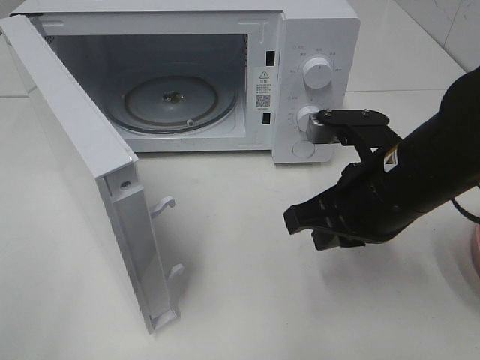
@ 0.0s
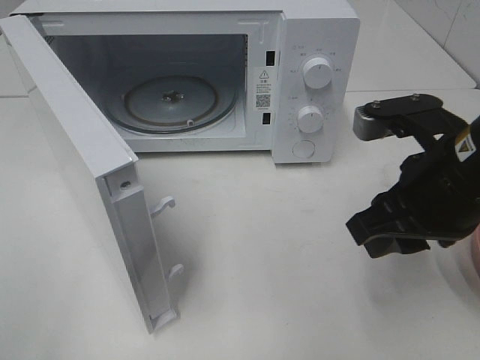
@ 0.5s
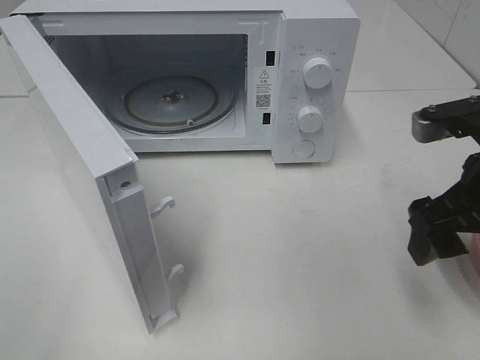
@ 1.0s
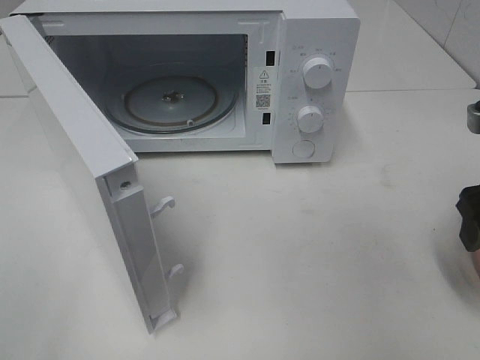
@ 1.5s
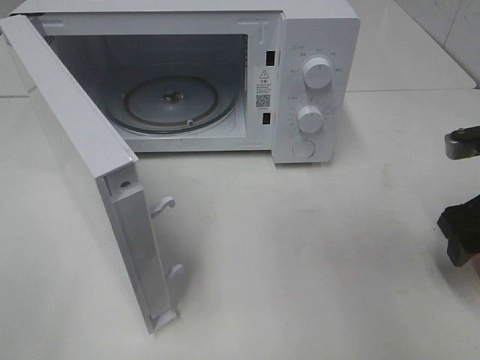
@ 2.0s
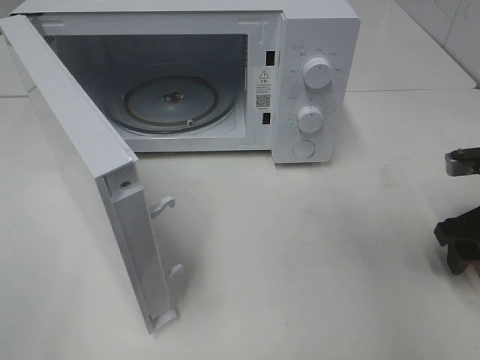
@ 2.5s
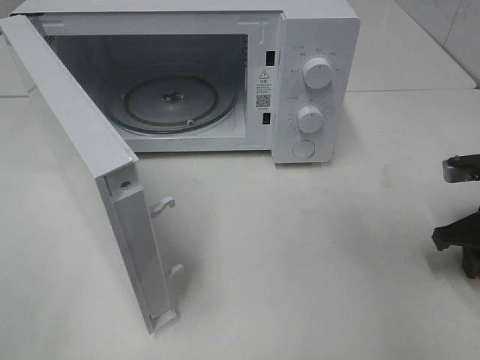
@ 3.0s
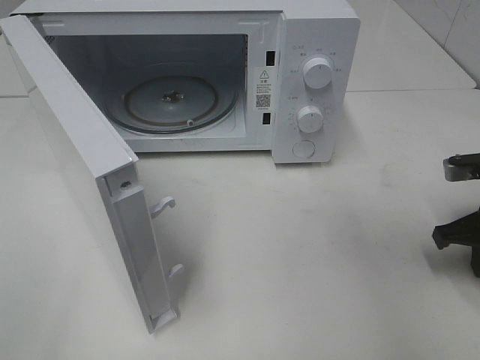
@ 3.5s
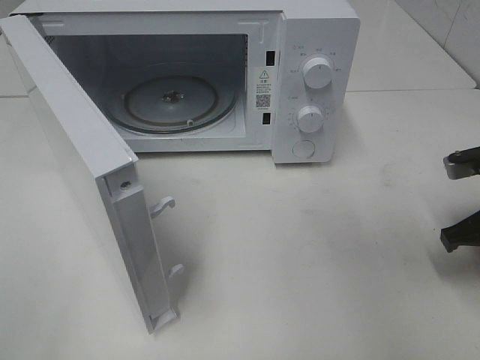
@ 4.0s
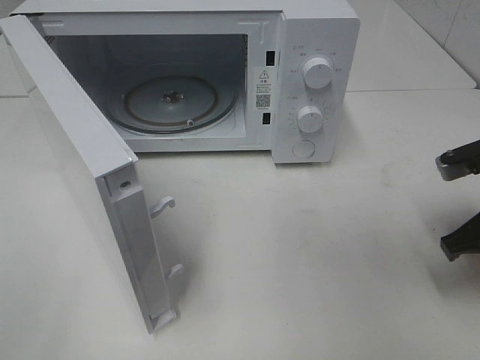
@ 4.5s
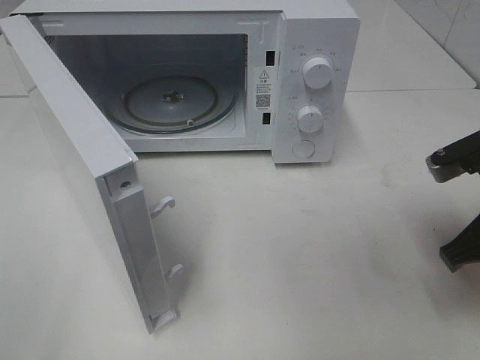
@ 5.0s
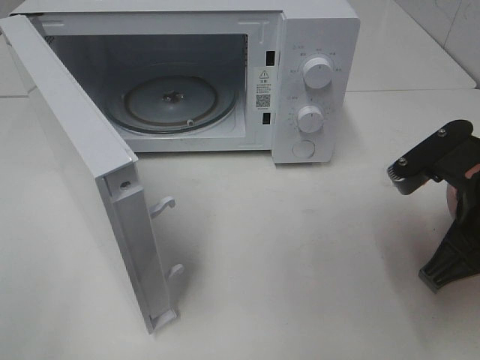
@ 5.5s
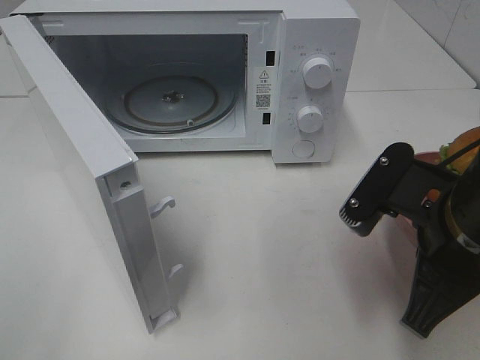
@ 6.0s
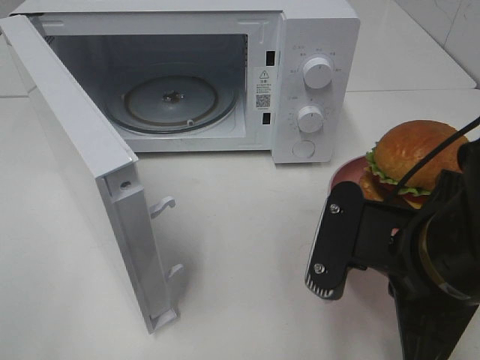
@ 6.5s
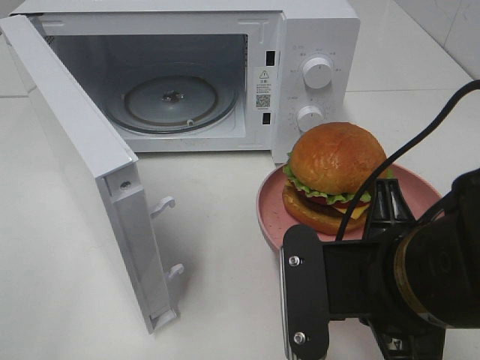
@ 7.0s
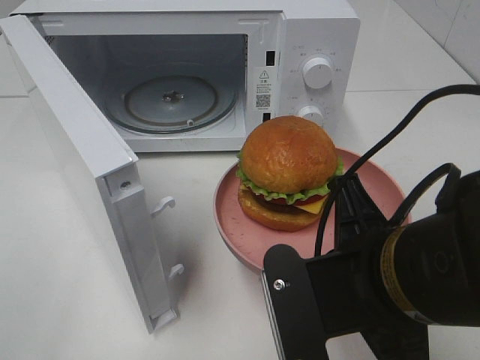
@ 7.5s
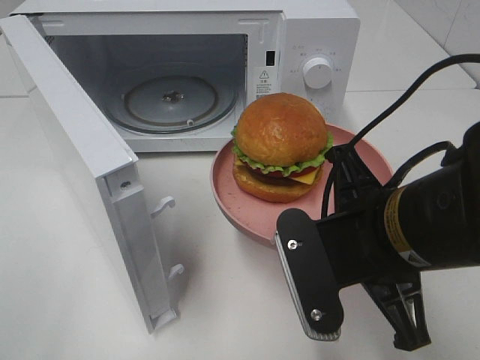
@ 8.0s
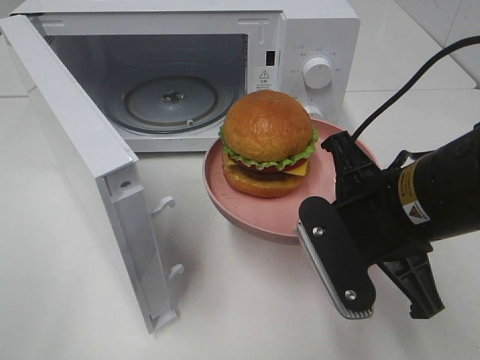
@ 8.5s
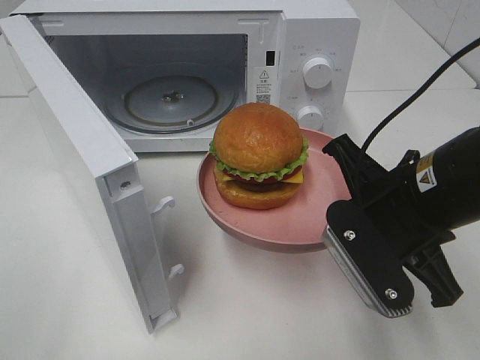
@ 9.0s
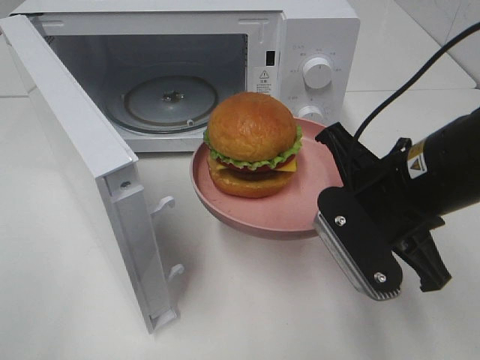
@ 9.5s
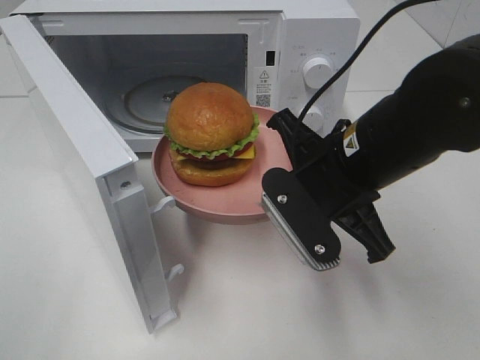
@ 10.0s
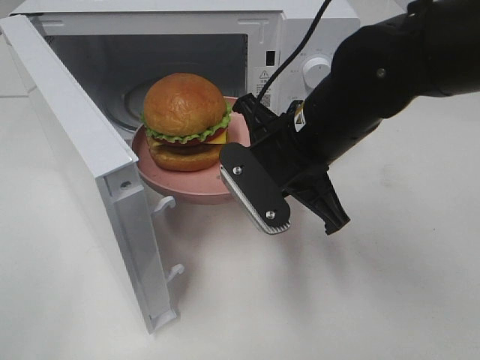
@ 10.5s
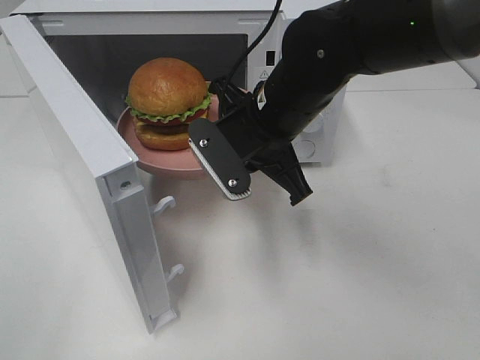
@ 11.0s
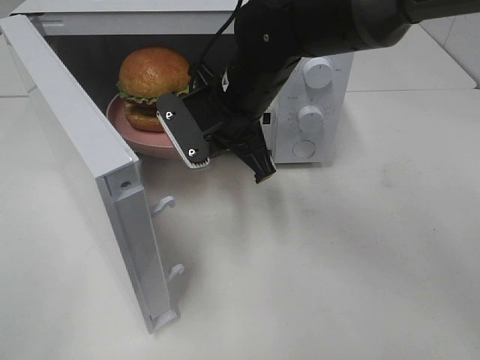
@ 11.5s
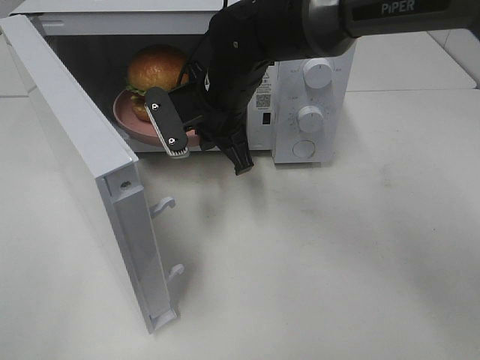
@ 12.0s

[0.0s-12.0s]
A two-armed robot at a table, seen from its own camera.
Task of the whole recording: Heat the burger.
Step, 0.0s to 3.5s: Right hand: grab the plate with the hamburger.
0.0s to 2.0s: The right gripper shifts roughly 15 cm to the right, and opens its fingers.
2.0s to 4.0s: The right gripper closes its fingers.
4.0s to 6.0s: The right gripper heads to the left, backward and upward, covering roughly 15 cm.
6.0s to 8.0s: The right gripper travels to the left by some 5 cm.
8.0s to 10.0s: The right gripper travels forward by roughly 10 cm.
10.0s to 12.0s: The right gripper heads forward and to the left, covering some 20 cm.

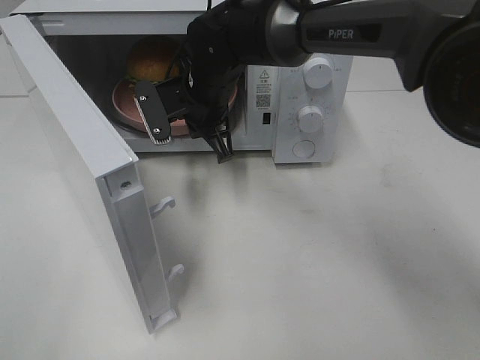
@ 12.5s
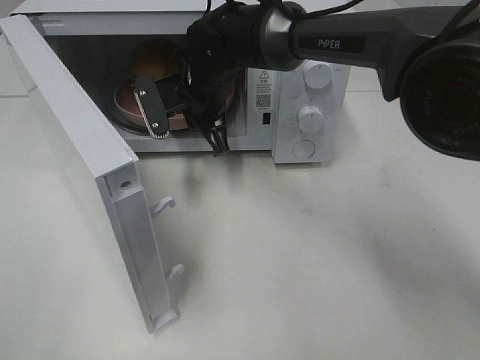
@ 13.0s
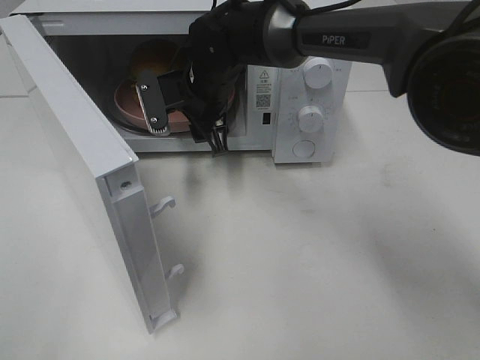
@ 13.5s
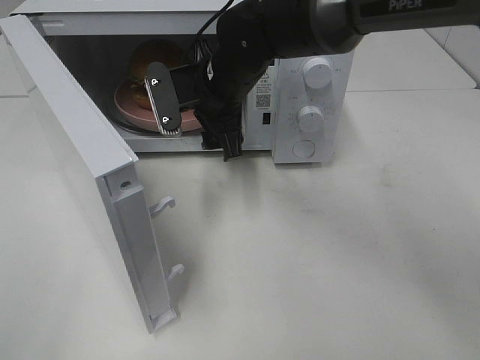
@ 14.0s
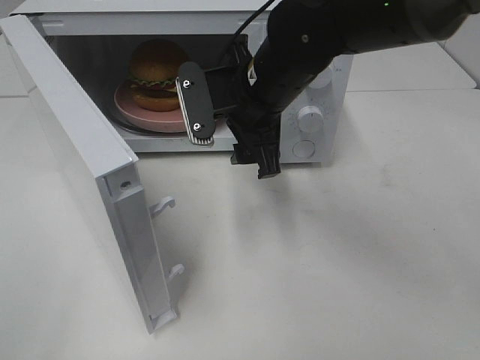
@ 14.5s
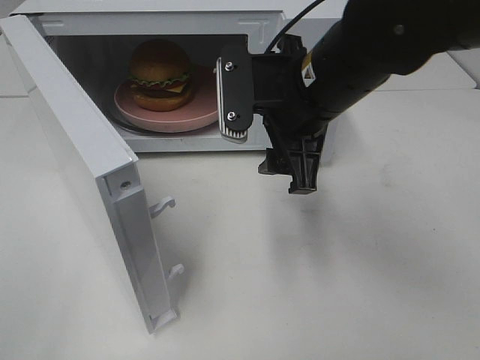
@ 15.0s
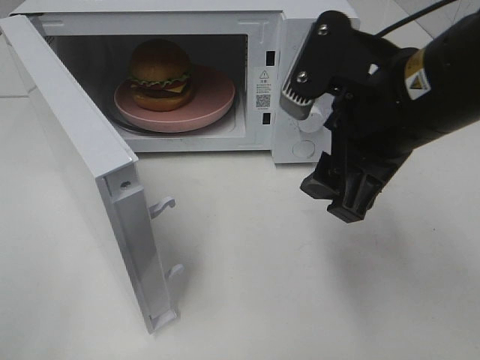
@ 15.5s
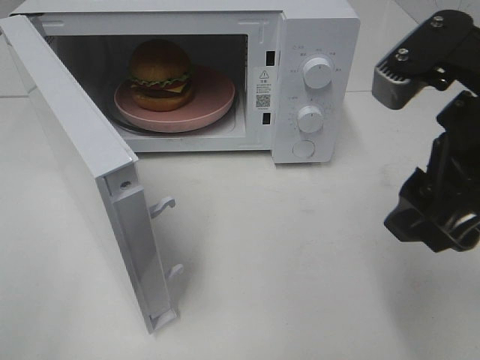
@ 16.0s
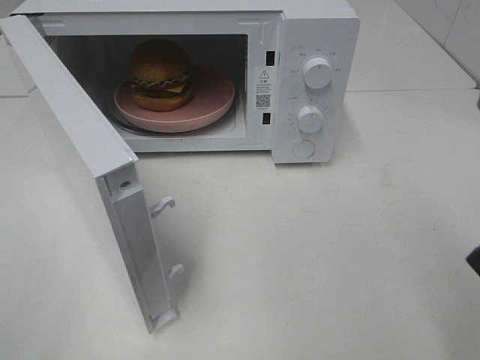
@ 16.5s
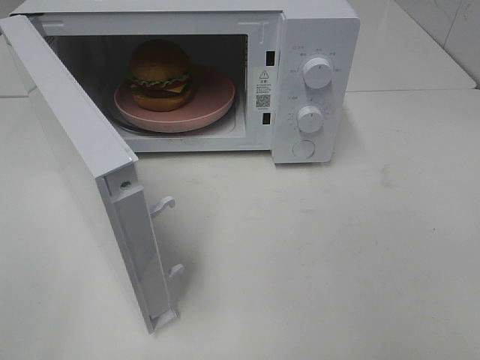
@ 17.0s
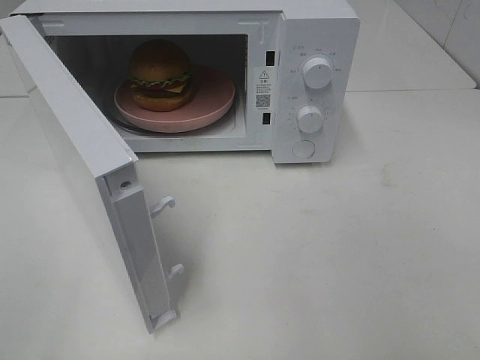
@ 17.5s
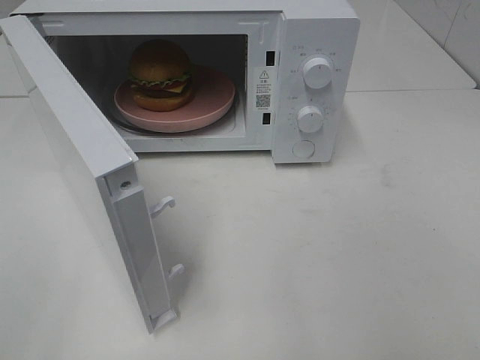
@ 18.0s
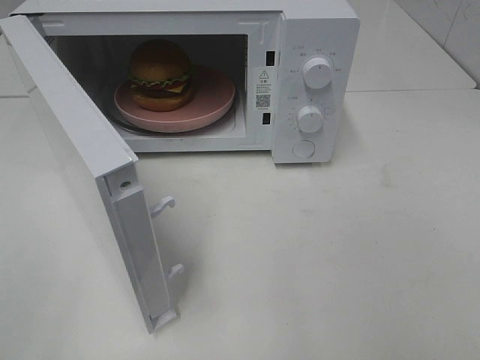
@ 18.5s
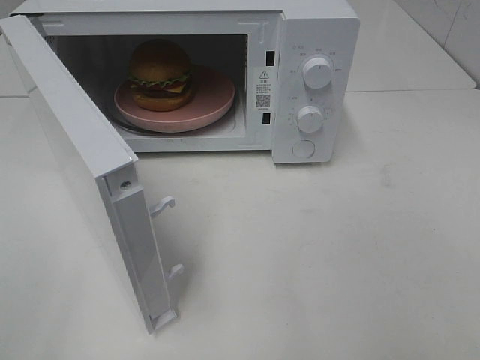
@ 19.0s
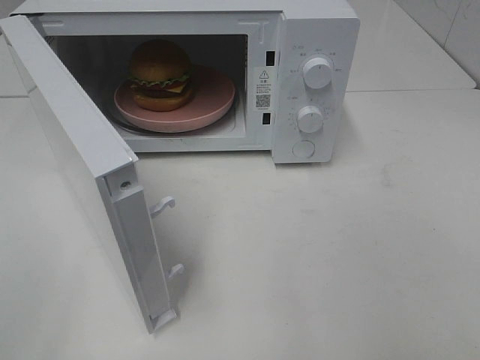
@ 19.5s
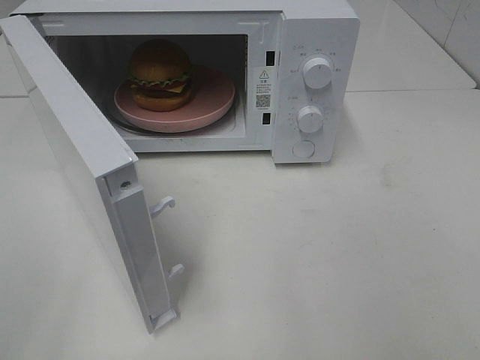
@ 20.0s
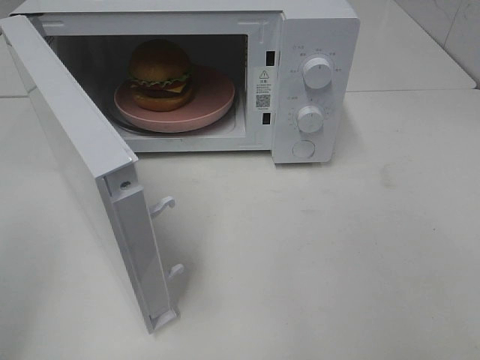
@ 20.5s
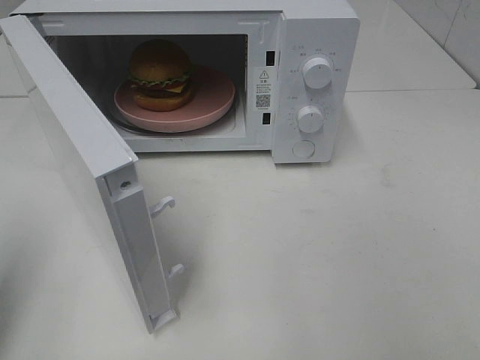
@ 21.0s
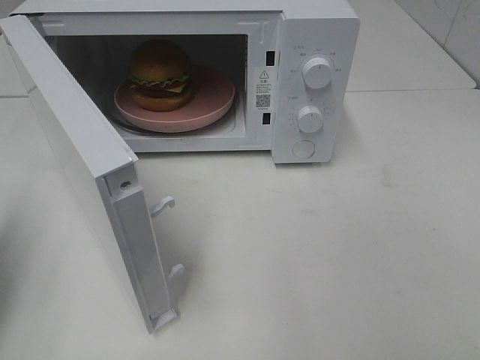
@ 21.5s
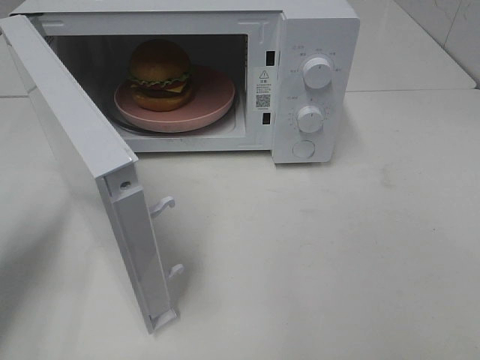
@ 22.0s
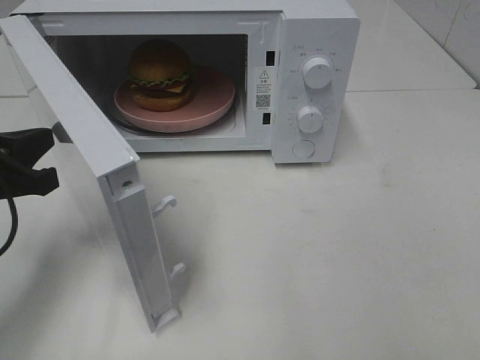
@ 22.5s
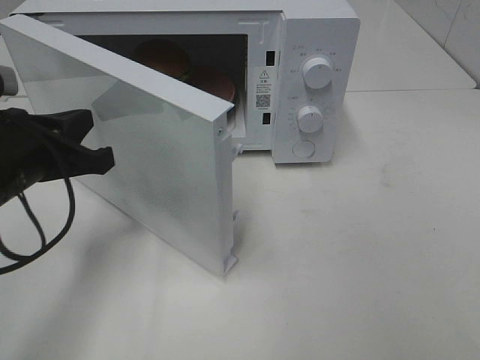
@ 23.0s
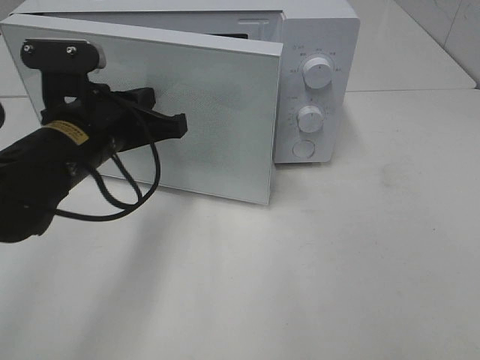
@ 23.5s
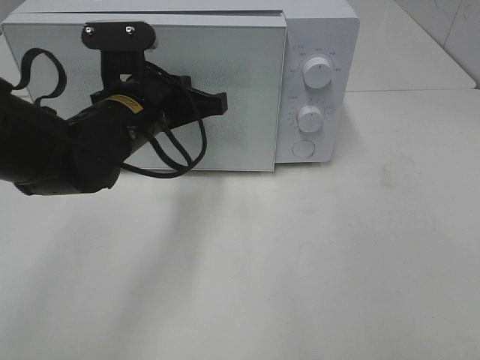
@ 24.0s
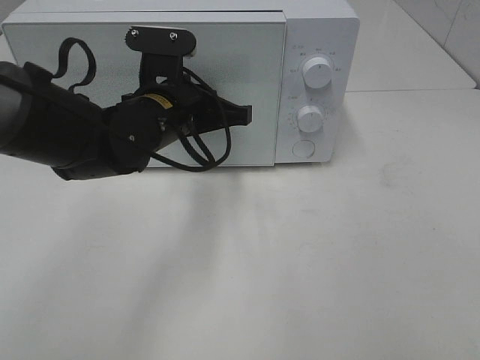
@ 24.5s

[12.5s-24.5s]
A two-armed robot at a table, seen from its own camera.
Task of the whole recording: Heat the burger.
12.5s to 14.5s: The right gripper heads backward and to the right, covering approximately 10 cm, and opens up.
14.5s to 16.5s: The right gripper moves backward, to the right and upward, some 30 cm.
20.5s to 22.5s: The left gripper is displaced forward and downward by about 20 cm, and closes its fingers.
22.5s to 24.5s: The left gripper moves to the right and forward, roughly 20 cm.

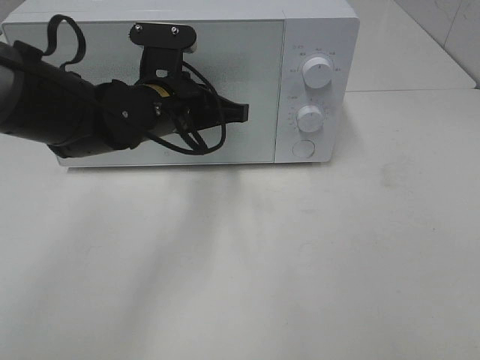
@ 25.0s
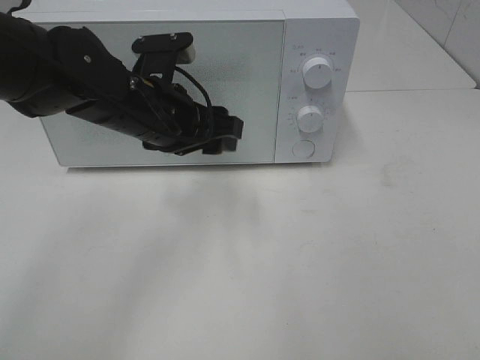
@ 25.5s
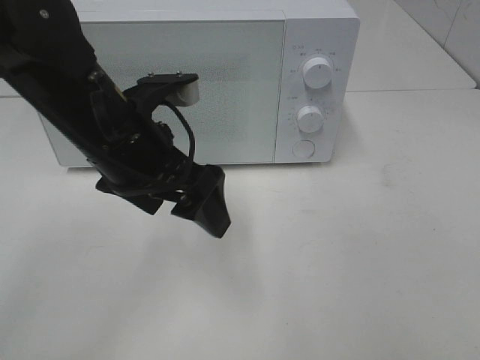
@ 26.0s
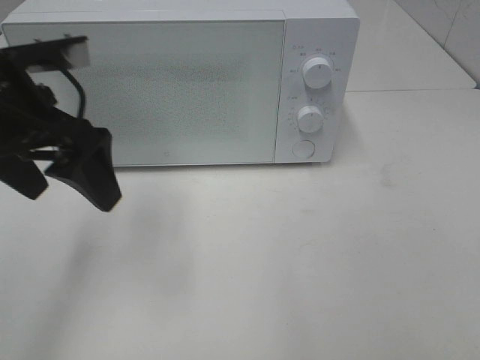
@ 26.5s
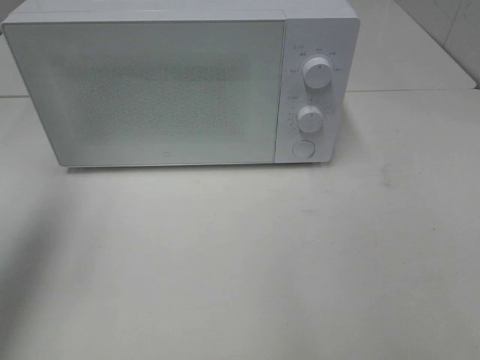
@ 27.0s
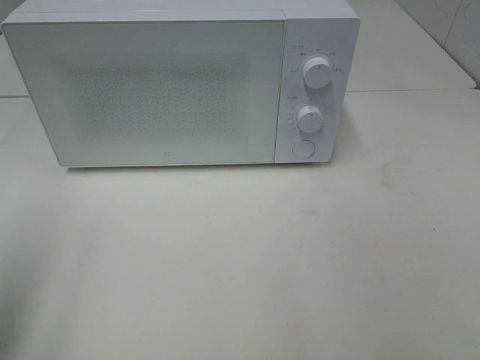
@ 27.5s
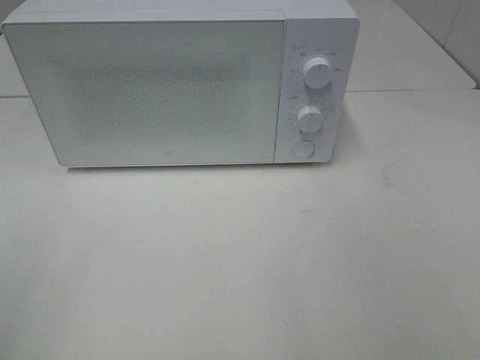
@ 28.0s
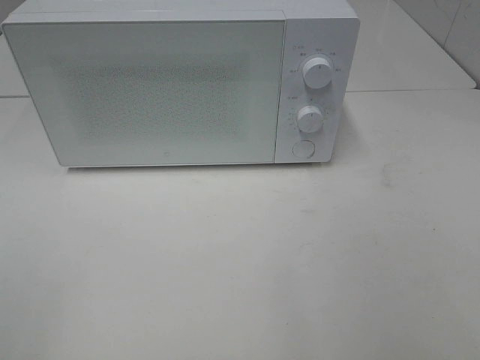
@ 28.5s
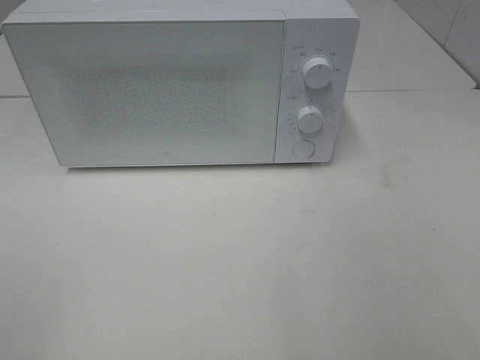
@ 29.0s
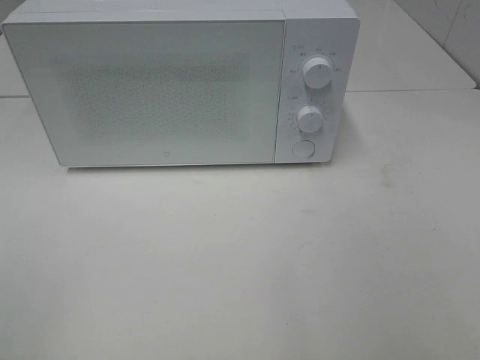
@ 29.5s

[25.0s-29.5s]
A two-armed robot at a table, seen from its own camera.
Task of the whole recording: Heat the burger.
25.0s to 27.0s: The left gripper moves to the left, upward and backward, roughly 30 cm, and opens.
27.0s to 29.5s: The left gripper is displaced backward by roughly 25 cm.
